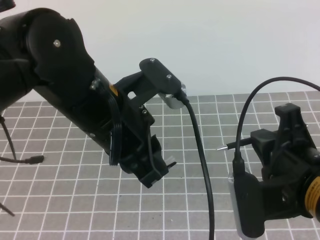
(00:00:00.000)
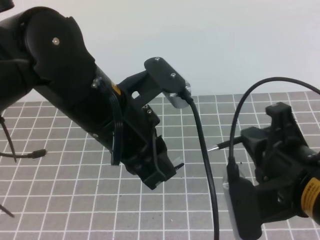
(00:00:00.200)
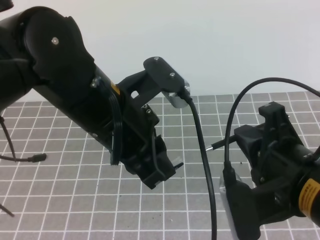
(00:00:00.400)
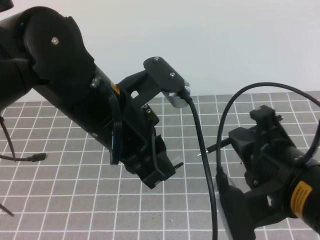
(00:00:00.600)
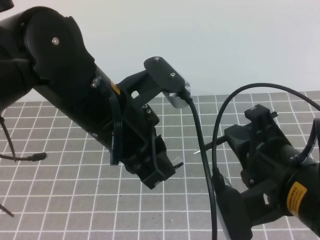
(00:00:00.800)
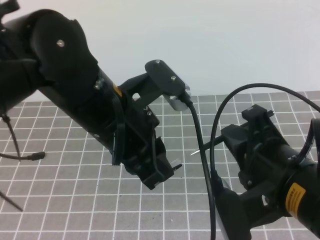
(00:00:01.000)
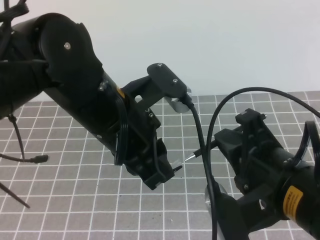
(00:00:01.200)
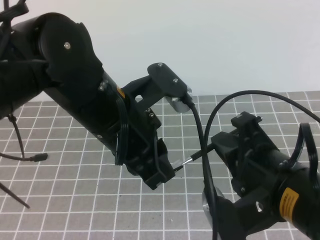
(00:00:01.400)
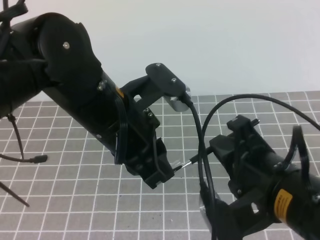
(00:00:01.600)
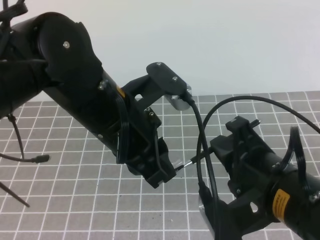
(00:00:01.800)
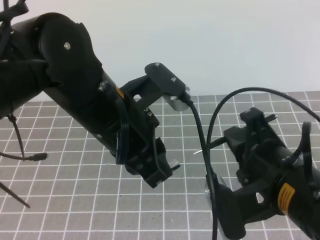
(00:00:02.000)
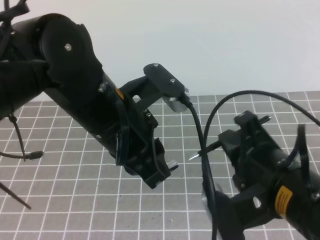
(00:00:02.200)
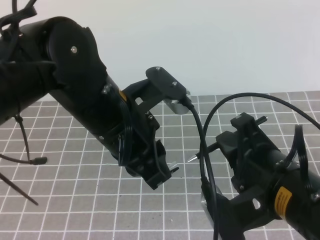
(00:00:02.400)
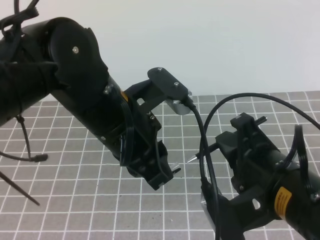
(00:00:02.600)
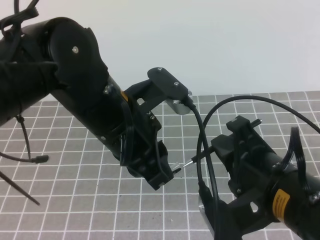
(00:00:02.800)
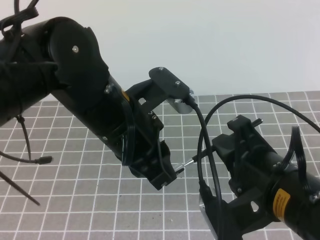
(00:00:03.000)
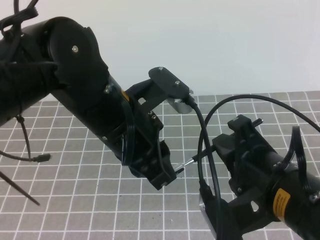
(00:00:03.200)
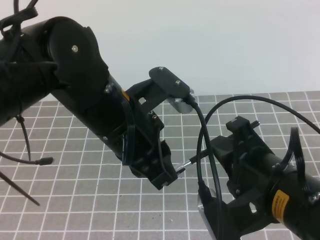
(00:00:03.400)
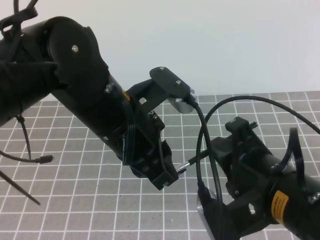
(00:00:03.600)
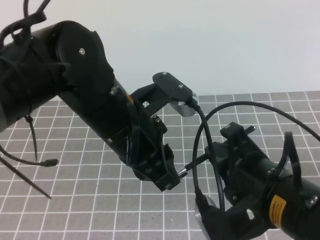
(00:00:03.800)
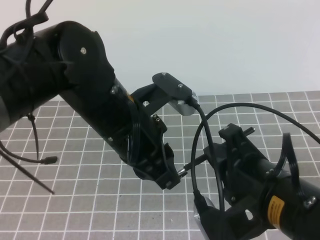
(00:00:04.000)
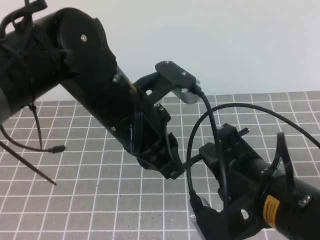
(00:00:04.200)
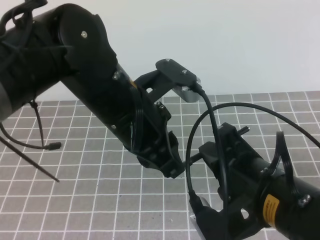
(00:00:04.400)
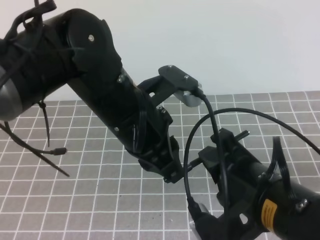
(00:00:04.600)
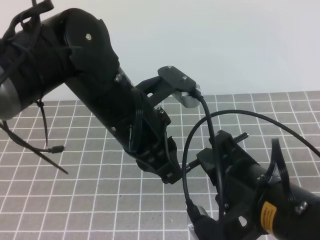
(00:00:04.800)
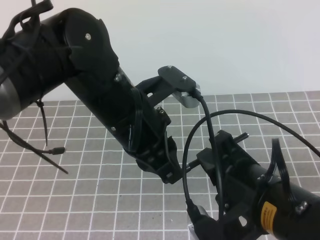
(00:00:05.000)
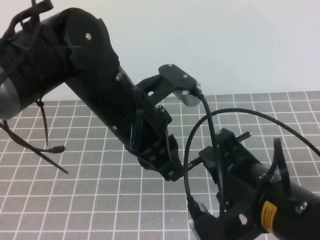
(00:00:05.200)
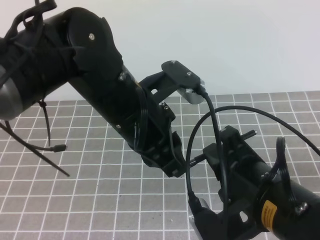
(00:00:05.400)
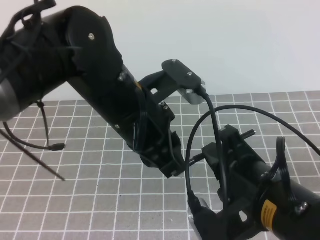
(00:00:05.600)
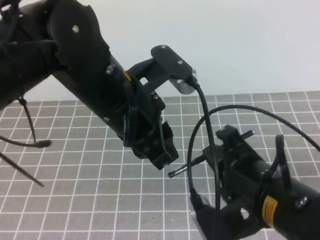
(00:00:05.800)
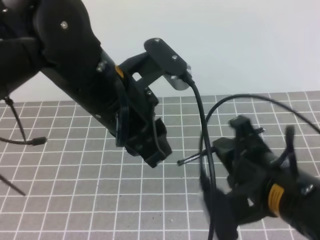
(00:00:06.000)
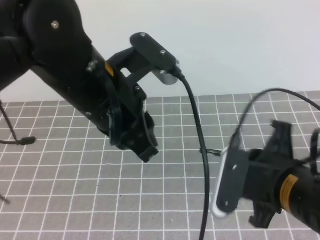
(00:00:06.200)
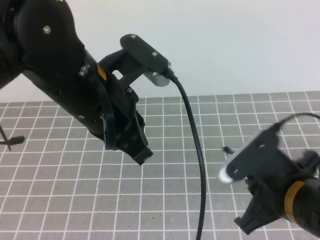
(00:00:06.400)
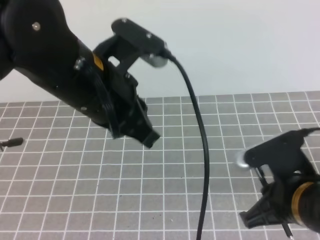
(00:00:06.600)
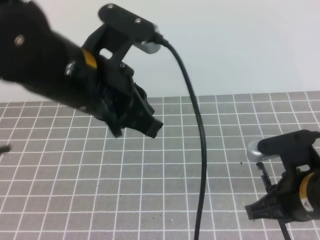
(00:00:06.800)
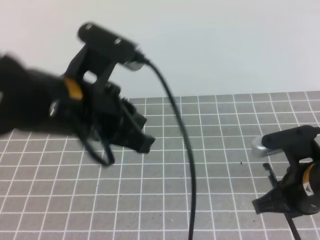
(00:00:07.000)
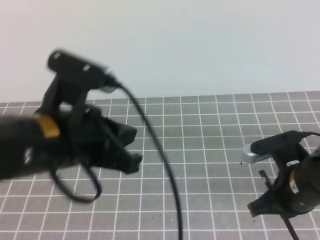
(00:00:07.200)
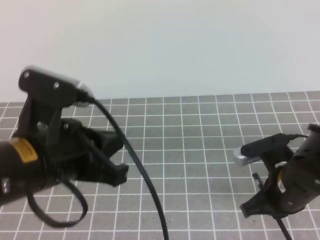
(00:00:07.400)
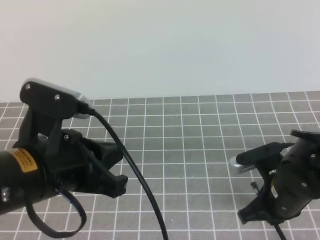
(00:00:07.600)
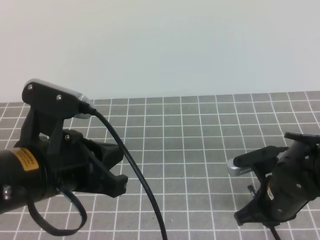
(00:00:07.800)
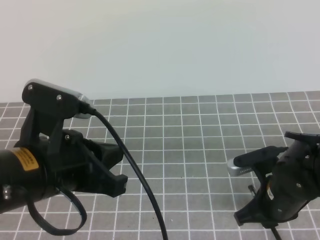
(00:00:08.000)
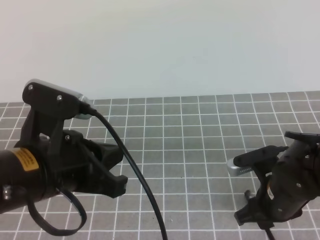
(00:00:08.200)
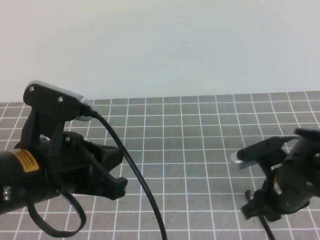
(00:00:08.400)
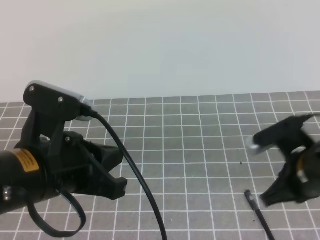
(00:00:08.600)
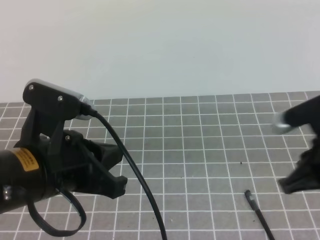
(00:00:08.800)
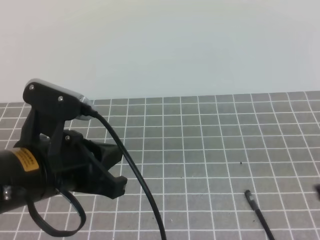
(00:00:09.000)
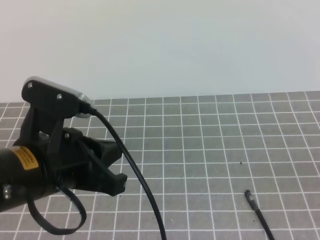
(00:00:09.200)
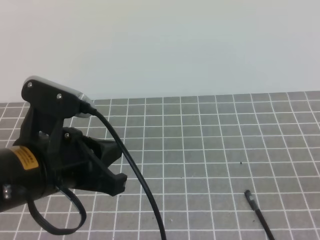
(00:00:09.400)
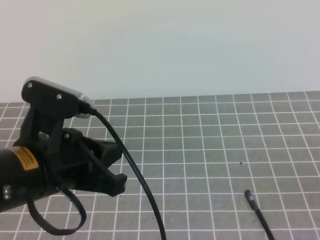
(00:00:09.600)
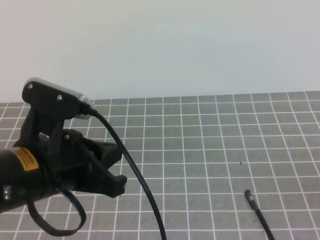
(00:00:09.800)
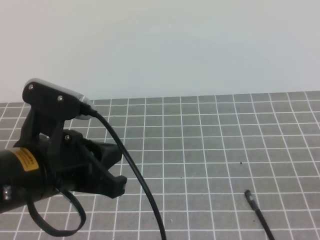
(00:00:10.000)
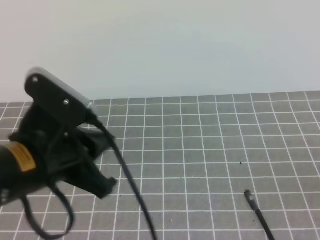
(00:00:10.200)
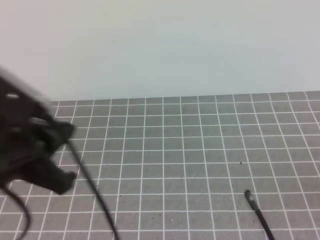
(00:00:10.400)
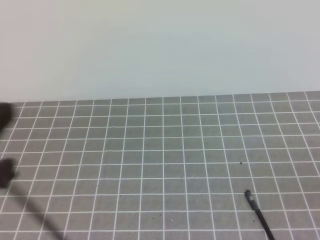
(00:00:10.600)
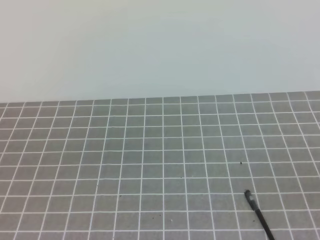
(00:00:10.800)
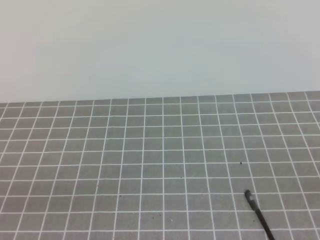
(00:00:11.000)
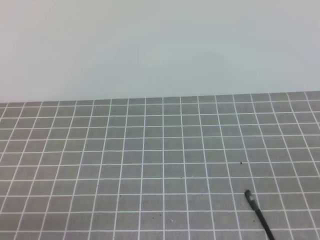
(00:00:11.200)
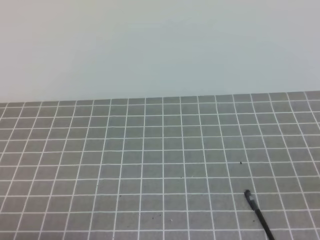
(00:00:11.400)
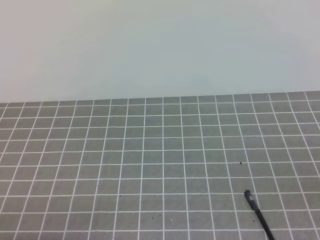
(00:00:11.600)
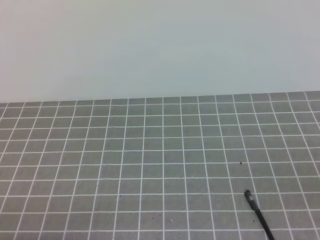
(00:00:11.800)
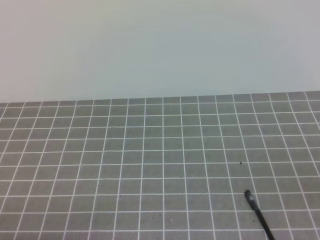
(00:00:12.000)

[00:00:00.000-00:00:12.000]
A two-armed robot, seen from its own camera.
Task of the whole recording: on the grey tablecloth, hold the pen cap in one hand and the pen in the other, then cover the pen cap.
00:00:01.600 to 00:00:03.000: Neither gripper changes place.
00:00:04.400 to 00:00:06.000: The left gripper opens up.
00:00:06.000 to 00:00:07.600: The left gripper shifts roughly 10 cm to the left and backward, and closes. The right gripper is displaced downward and forward by approximately 10 cm.
00:00:07.600 to 00:00:09.000: The right gripper goes about 15 cm upward, backward and to the right, and opens, then closes again.
00:00:09.000 to 00:00:10.400: The right gripper goes about 10 cm to the right, backward and downward. Meanwhile the left gripper ends up approximately 5 cm from where it was.
00:00:10.400 to 00:00:12.000: The left gripper shifts approximately 20 cm downward, backward and to the left.

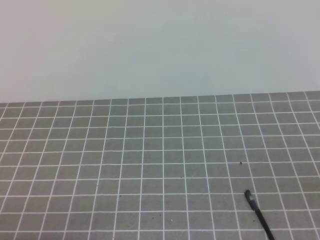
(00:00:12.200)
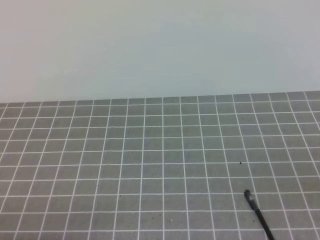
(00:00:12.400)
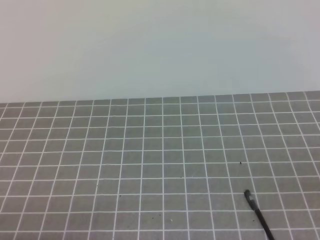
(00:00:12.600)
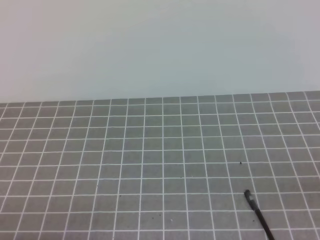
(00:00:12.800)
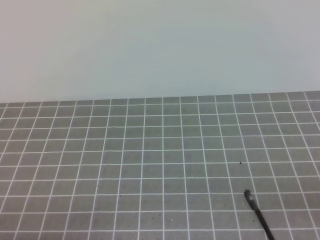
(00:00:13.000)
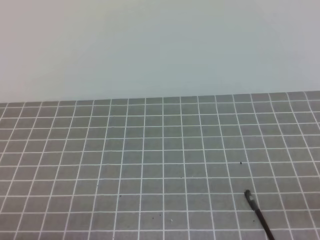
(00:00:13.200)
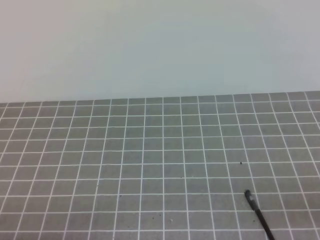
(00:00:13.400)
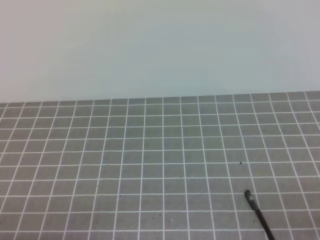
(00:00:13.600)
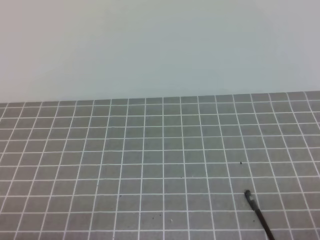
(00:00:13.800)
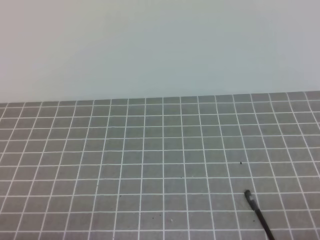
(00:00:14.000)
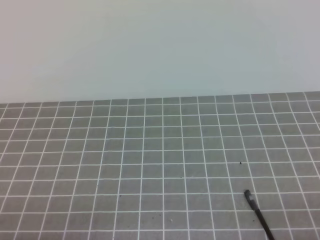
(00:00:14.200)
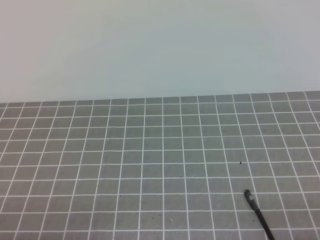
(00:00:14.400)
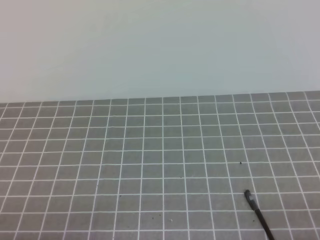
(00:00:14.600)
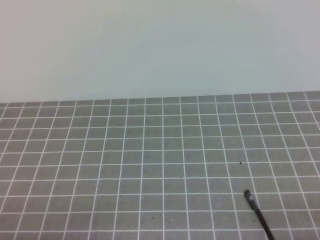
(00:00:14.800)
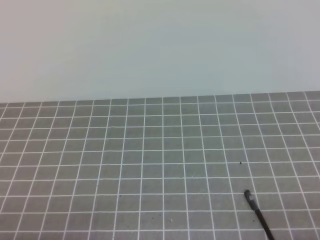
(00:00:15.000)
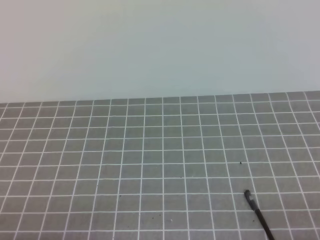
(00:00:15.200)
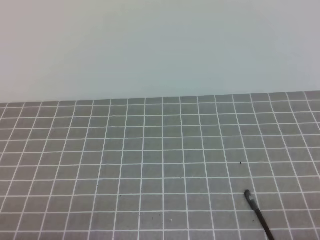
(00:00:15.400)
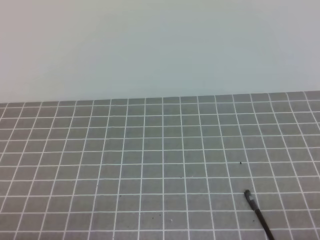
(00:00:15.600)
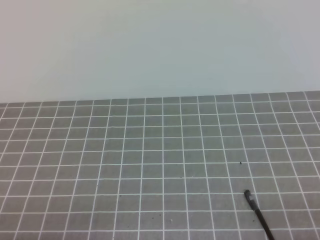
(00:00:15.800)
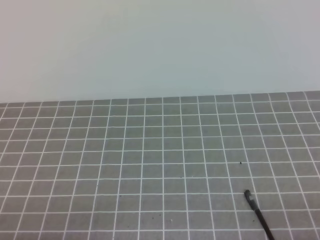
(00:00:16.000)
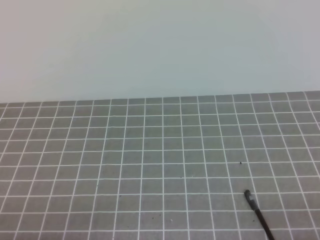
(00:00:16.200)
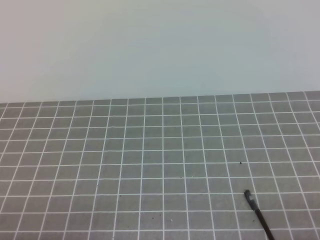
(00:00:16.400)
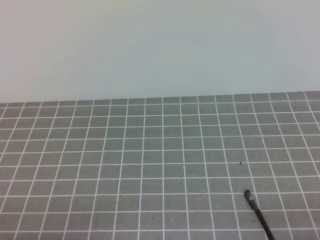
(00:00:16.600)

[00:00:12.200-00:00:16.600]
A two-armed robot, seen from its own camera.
Task of the whole recording: on the grey tablecloth, hold the pen cap in one hand and the pen in the other, then cover the pen cap.
00:00:15.200 to 00:00:16.600: Both grippers stay about where they are.
